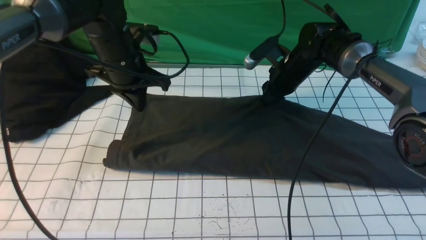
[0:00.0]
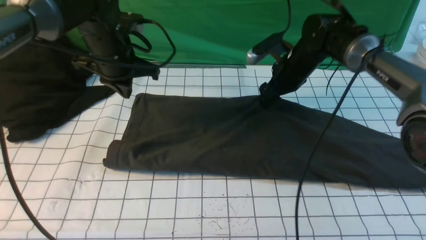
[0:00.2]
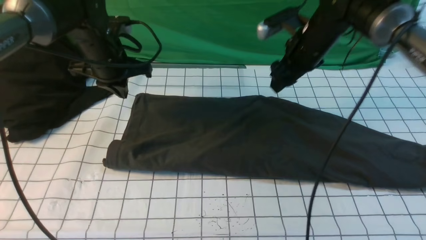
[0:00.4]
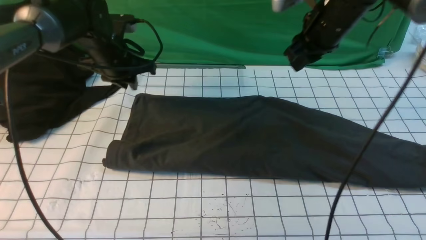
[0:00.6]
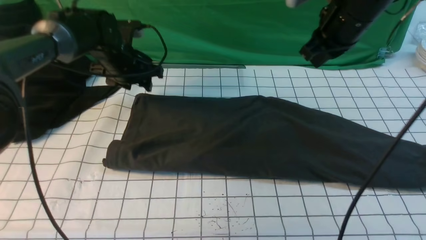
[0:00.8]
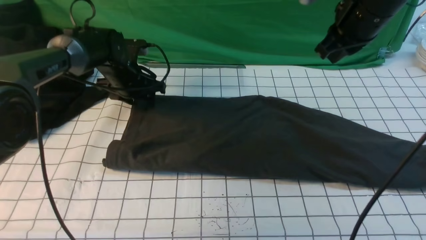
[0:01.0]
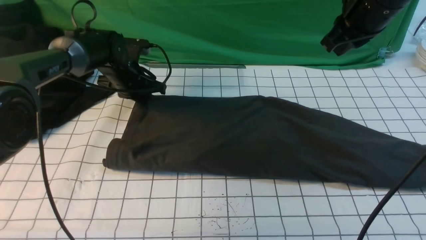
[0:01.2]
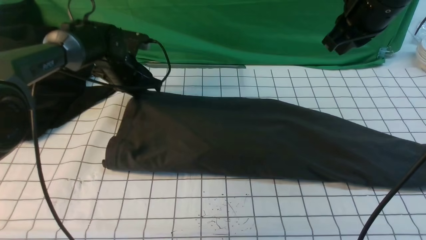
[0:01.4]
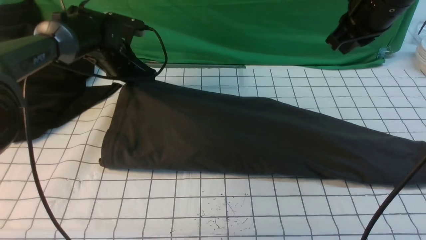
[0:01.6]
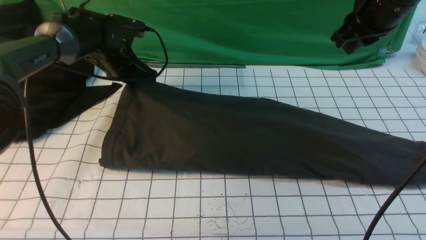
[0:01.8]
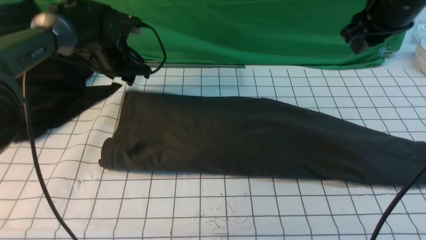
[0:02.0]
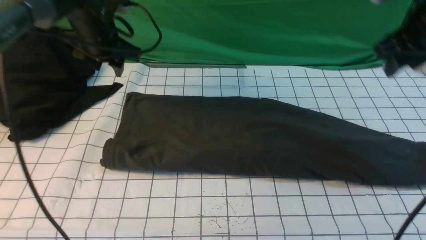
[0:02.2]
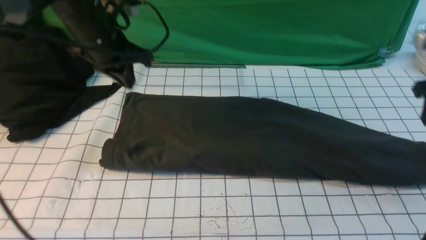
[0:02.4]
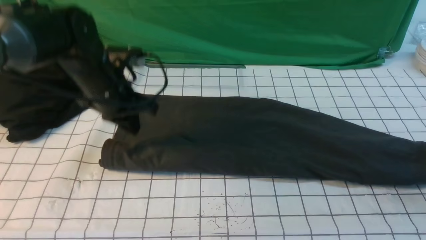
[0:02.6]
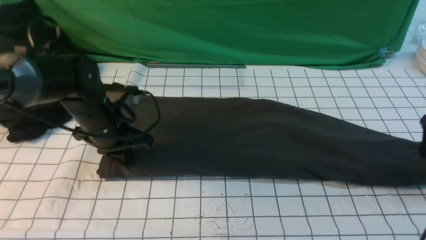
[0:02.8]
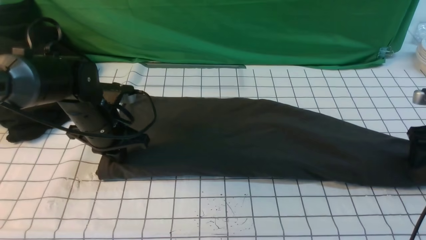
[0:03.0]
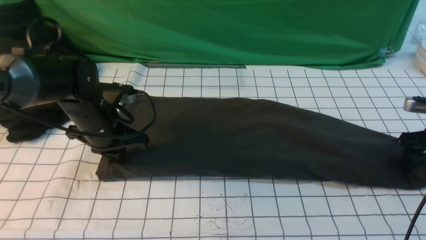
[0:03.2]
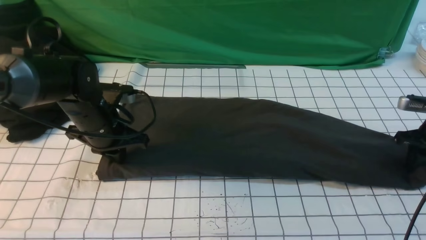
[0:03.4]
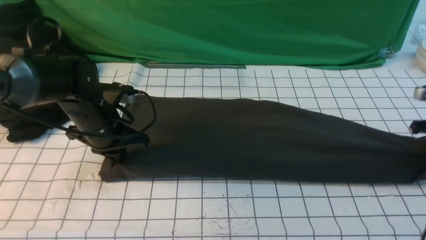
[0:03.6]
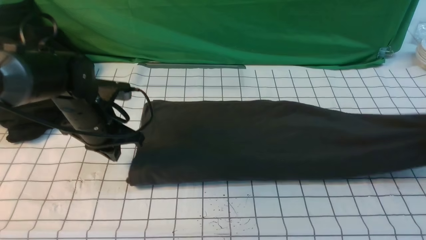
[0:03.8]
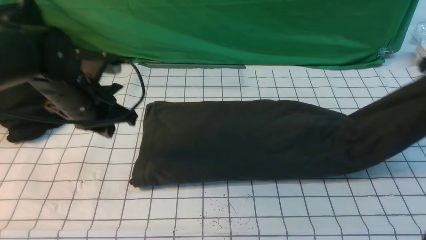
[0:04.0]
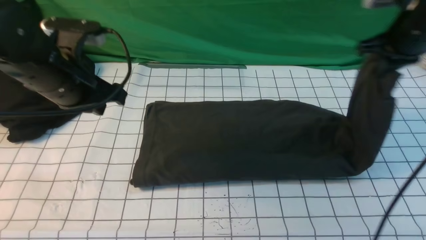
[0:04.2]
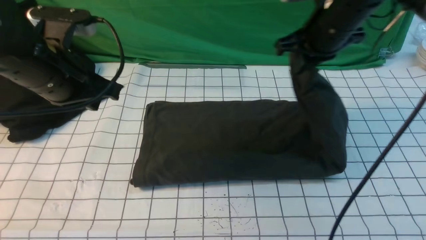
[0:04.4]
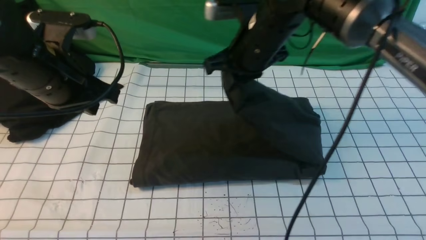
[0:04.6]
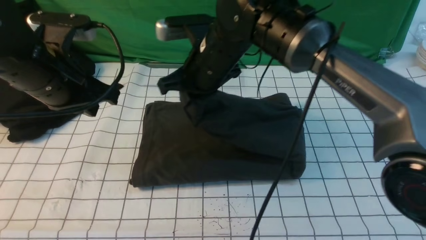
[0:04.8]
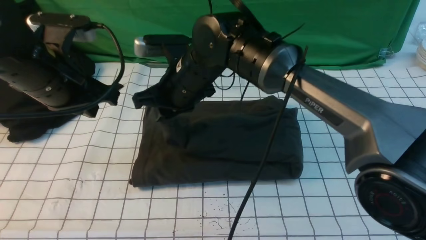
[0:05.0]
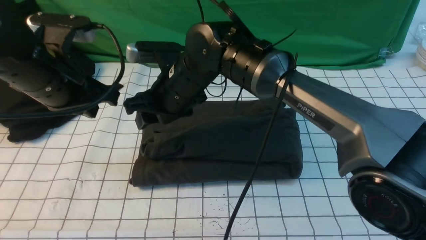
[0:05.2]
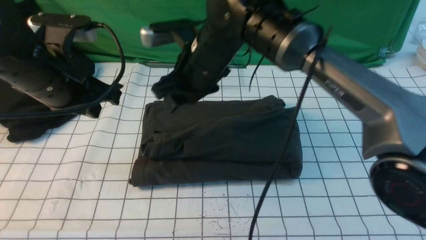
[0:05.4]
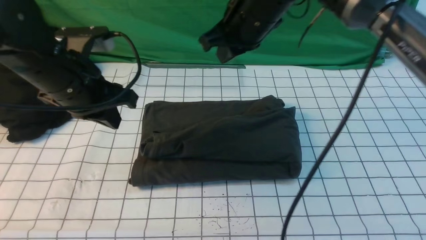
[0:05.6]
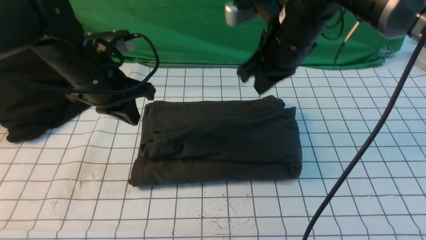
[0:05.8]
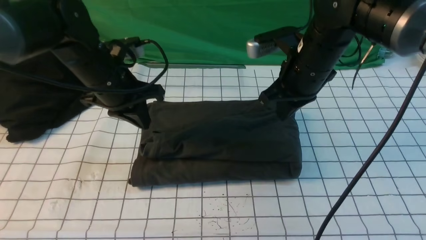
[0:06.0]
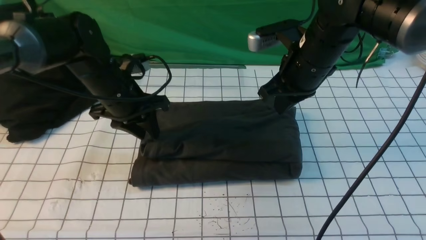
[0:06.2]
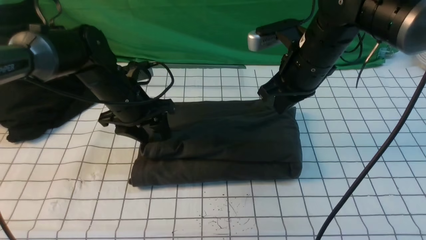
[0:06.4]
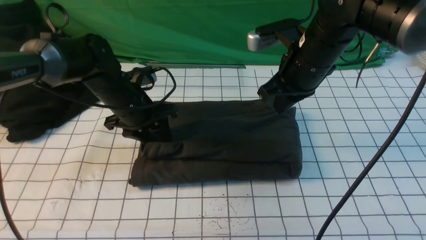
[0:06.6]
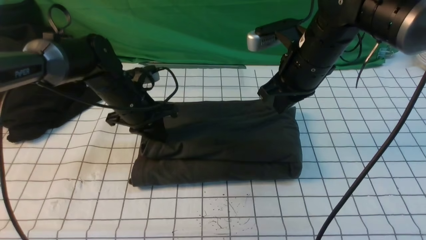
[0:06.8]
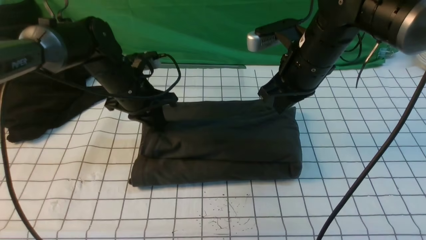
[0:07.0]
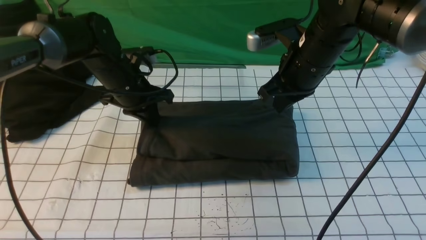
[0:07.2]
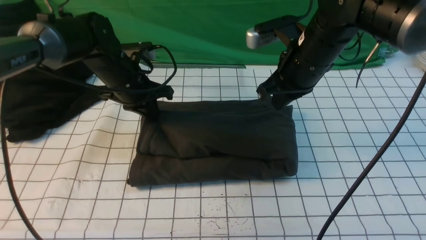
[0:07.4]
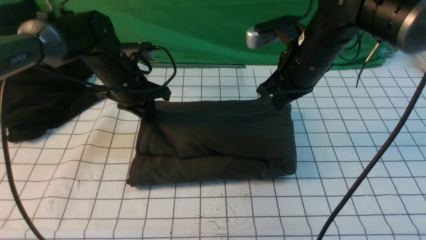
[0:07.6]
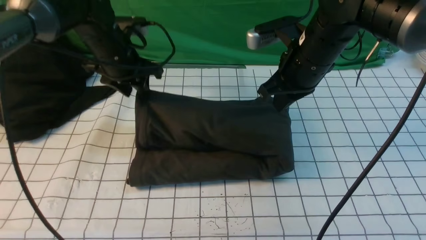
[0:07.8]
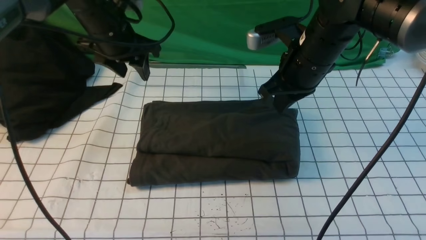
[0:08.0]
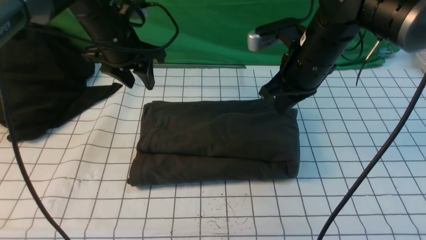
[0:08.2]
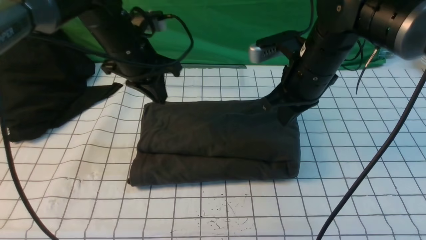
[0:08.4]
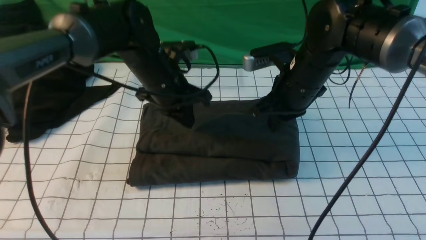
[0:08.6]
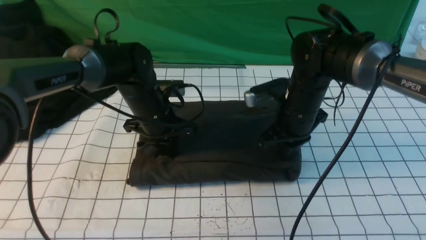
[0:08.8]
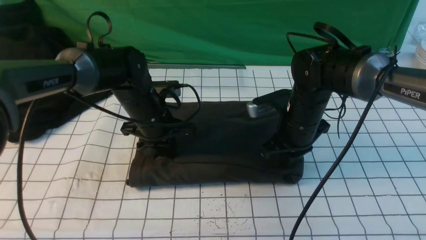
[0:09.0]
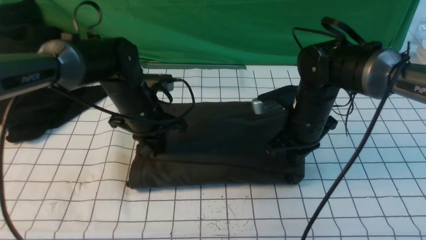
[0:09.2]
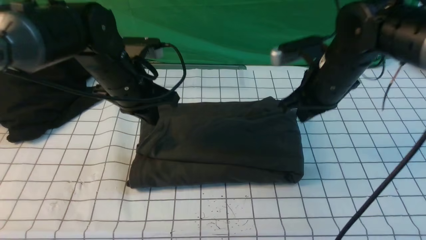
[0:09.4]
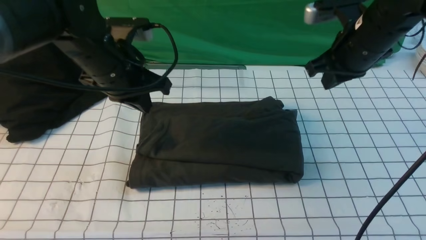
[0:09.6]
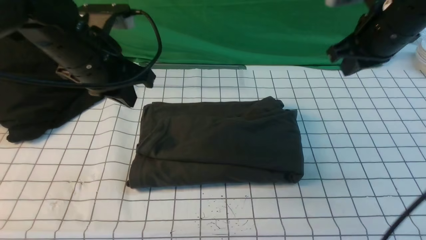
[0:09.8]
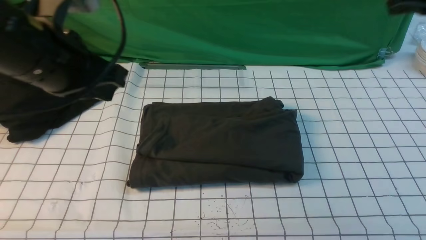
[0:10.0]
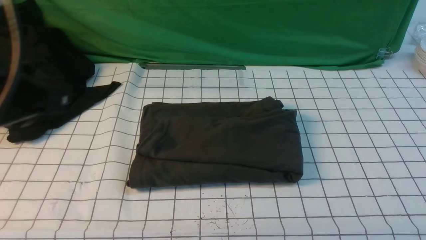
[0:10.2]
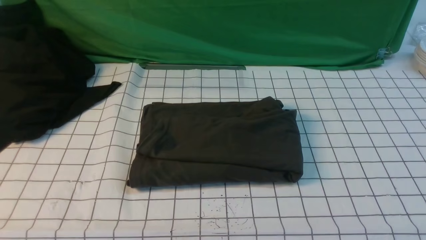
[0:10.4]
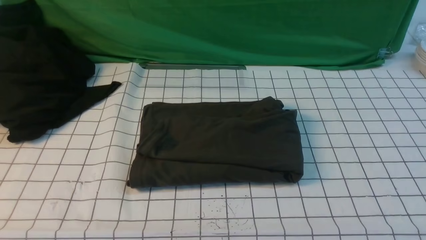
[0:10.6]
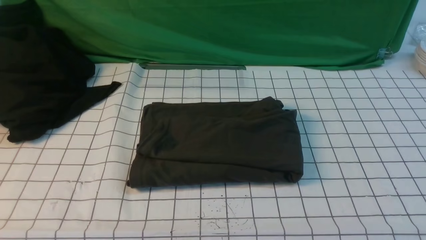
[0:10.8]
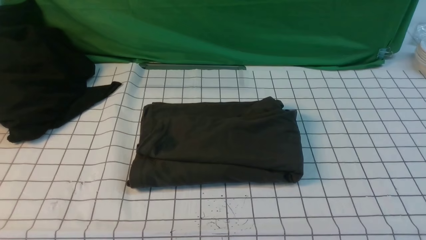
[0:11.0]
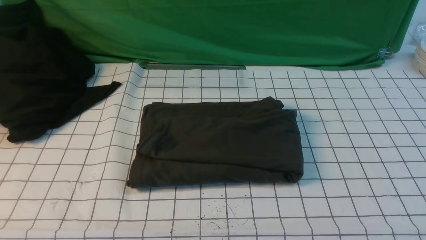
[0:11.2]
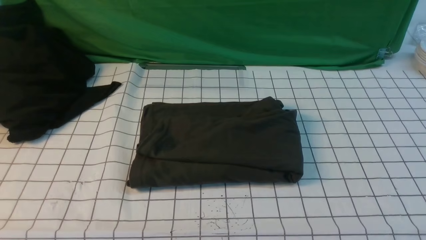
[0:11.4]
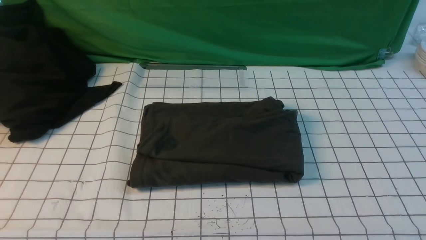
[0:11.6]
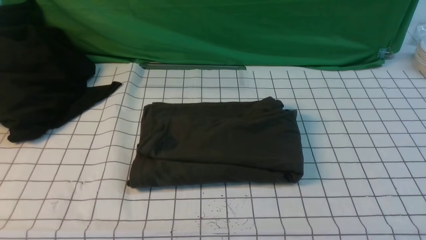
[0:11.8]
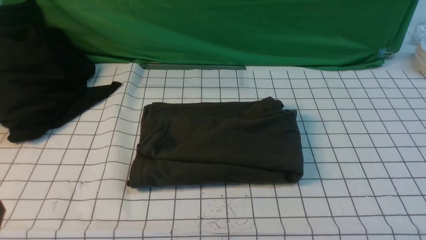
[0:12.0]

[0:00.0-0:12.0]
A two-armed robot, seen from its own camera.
Step, 0:00.0 to 0:03.6: use the right arm to clamp the right edge of the fabric.
Step, 0:04.0 to 0:05.2: use the right arm to drag the right edge of the fabric to the left and folds it over the left edge.
0:00.0 to 0:01.6: The right gripper shifts some 20 cm upward and backward, and closes up, while the left gripper moves forward and downward, some 10 cm, and opens and closes again.
0:01.6 to 0:03.0: The right gripper travels to the right and downward by approximately 30 cm, and opens, while the left gripper goes some 15 cm backward, and opens and closes again.
0:03.0 to 0:04.4: The left gripper travels upward and backward by some 15 cm. Meanwhile the right gripper heads to the left and upward, covering about 30 cm, and closes.
0:04.4 to 0:06.0: The right gripper travels to the left and back again, some 20 cm each way, and opens and closes again; the left gripper moves forward and downward, approximately 10 cm.
0:06.0 to 0:07.6: The left gripper travels forward by some 5 cm.
0:07.6 to 0:09.0: The right gripper moves downward, some 10 cm. Meanwhile the left gripper moves downward, some 5 cm.
0:09.0 to 0:10.4: The left gripper is displaced backward and upward by approximately 40 cm. Meanwhile the right gripper heads backward, upward and to the right, covering about 40 cm.

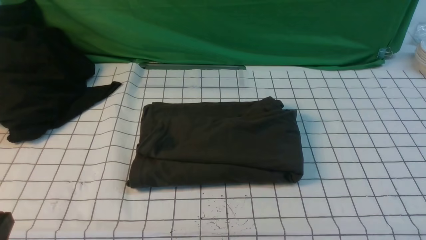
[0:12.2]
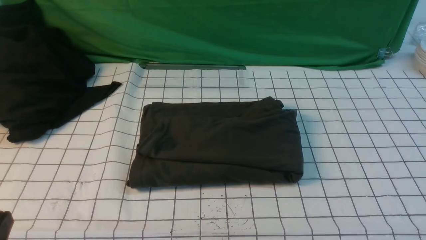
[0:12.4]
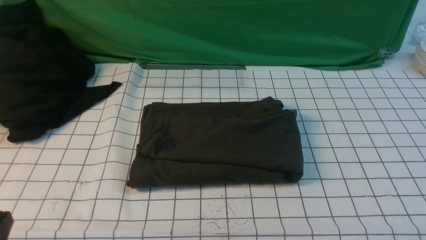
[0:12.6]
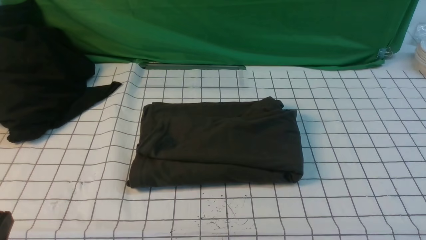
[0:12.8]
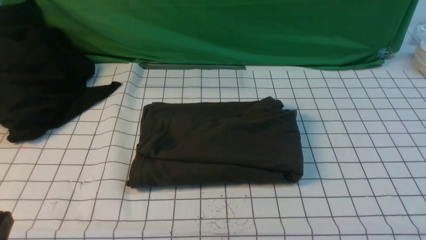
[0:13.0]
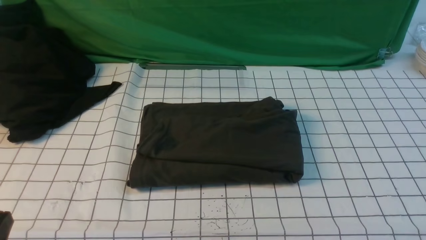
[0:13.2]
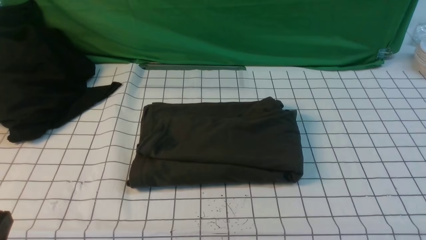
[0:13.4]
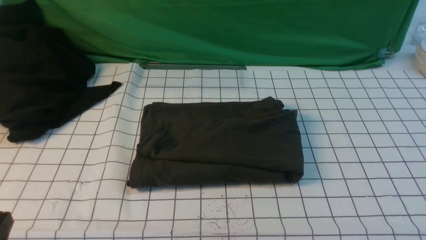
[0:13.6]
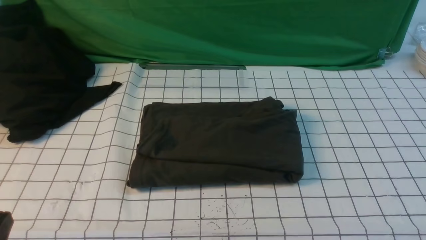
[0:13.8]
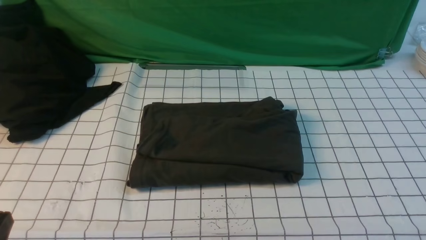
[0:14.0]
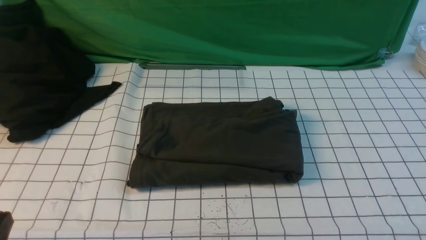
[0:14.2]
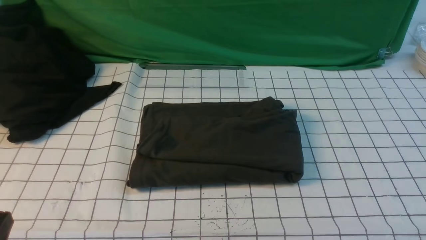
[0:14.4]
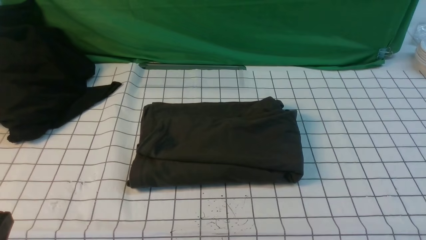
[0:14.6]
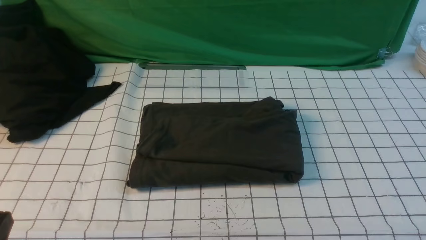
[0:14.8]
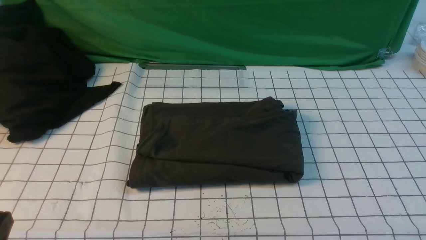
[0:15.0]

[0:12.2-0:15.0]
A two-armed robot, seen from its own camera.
0:13.6 to 0:15.0: Both grippers stay put.
